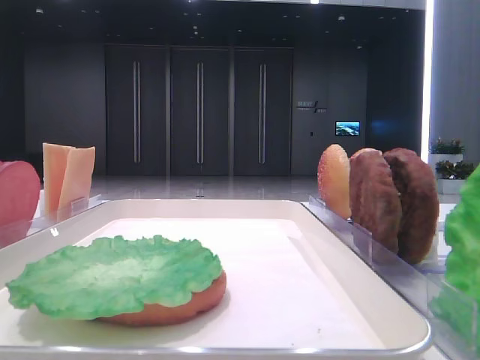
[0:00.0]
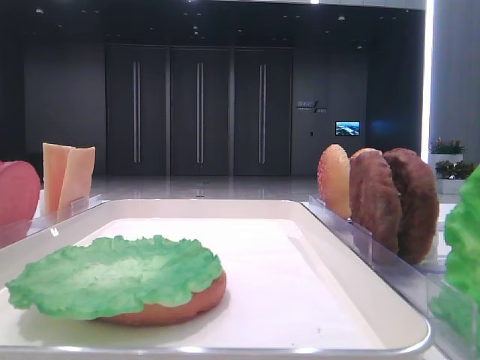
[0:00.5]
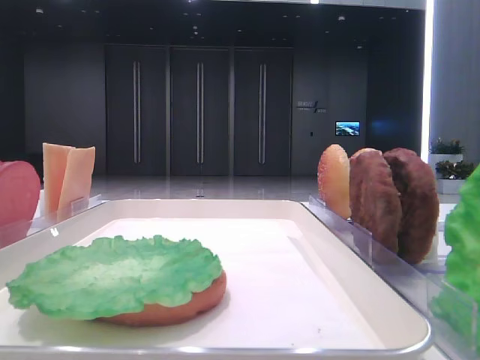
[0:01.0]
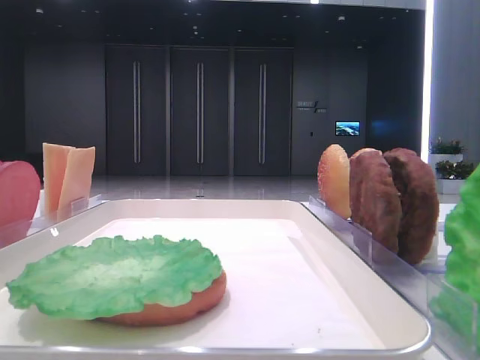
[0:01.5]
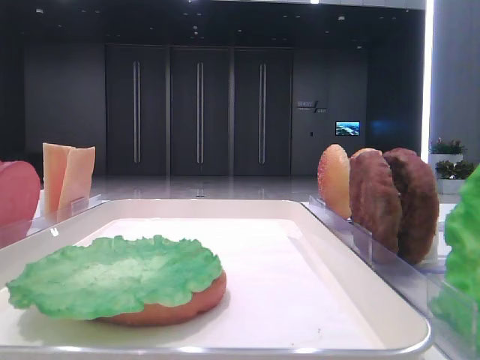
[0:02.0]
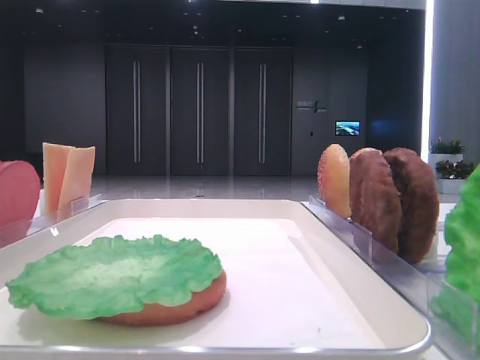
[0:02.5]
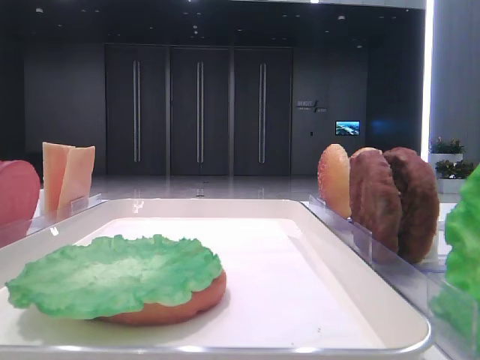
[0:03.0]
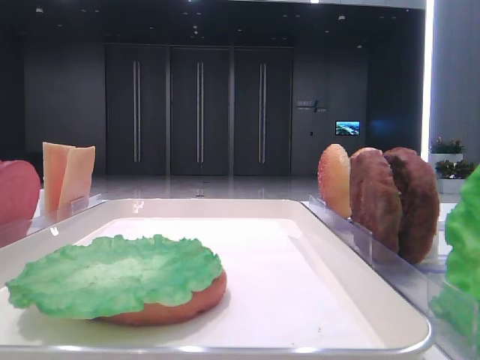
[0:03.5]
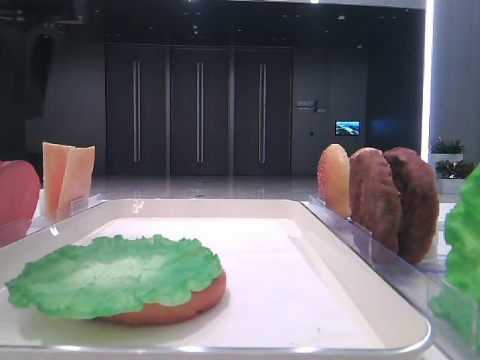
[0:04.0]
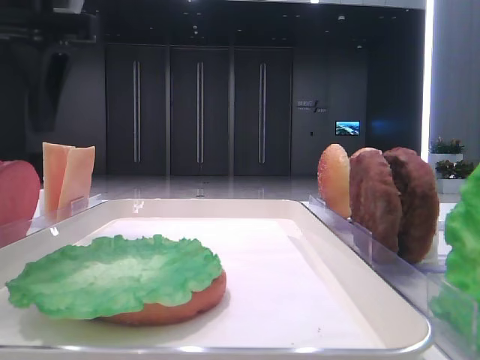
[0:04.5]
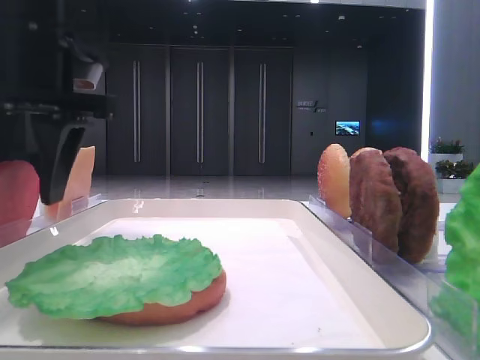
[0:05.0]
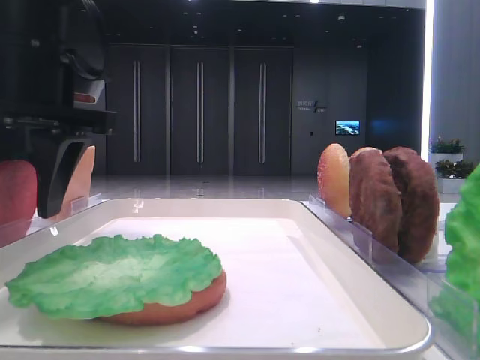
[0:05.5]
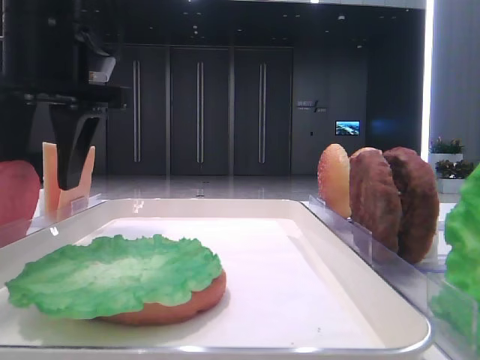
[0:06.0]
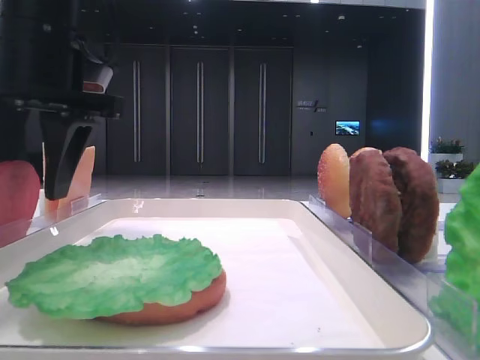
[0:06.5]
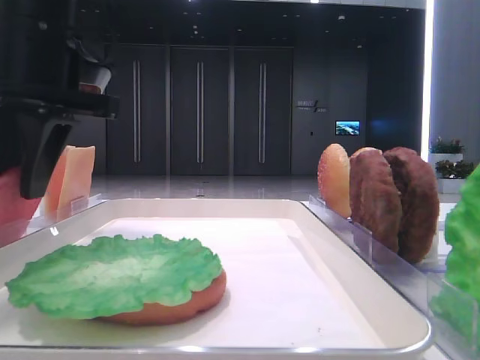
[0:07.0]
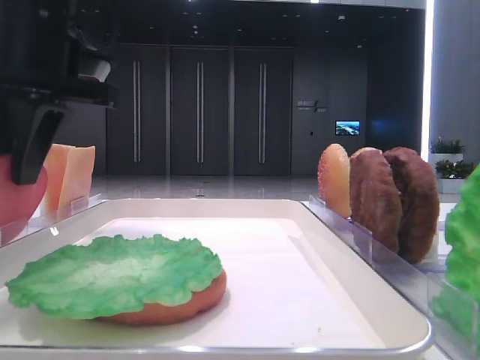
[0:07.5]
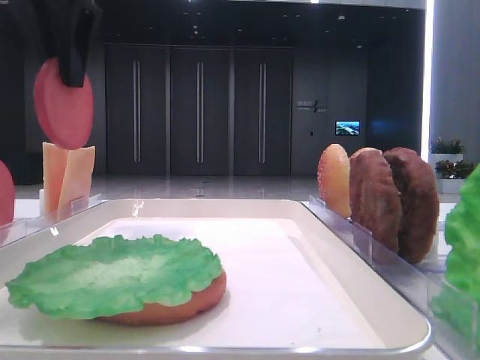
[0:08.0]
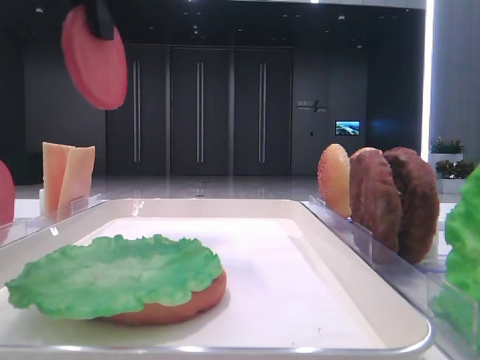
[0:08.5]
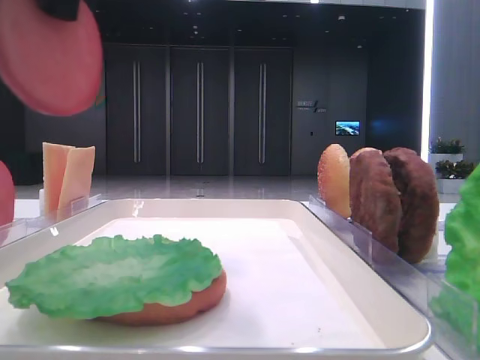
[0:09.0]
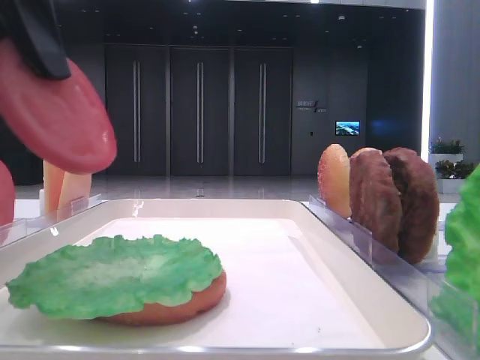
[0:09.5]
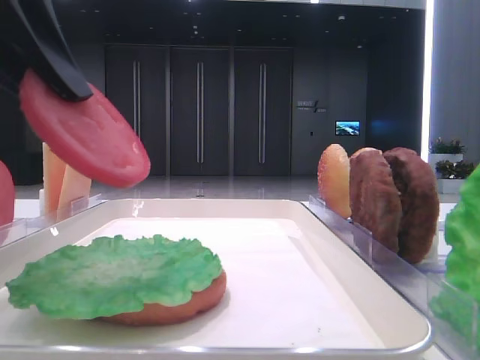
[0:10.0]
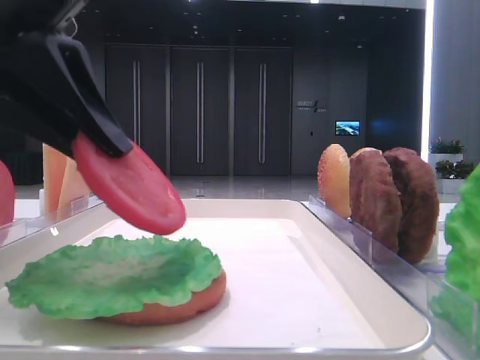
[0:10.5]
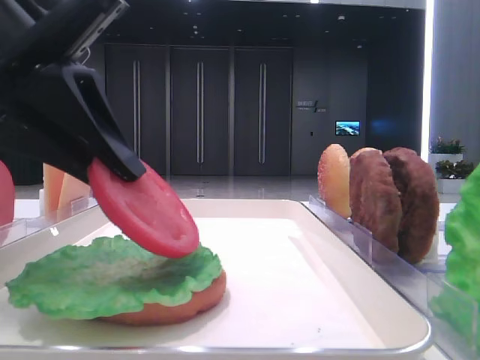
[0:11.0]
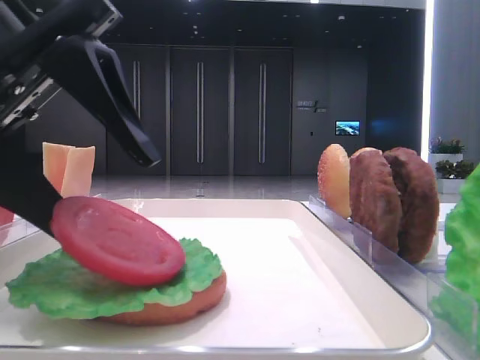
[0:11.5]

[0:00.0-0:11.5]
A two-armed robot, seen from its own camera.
Step, 0:00.0 to 0:06.5: Pick up the tomato slice with the left hand.
0:02.0 to 0:04.0: The left gripper heads forward and to the right, covering roughly 30 cm.
0:04.0 to 0:06.0: The left gripper moves downward, about 5 cm.
0:06.0 to 0:07.5: The left gripper closes its fingers.
0:07.5 to 0:09.5: The left gripper moves backward and upward, roughly 15 cm.
0:09.5 to 0:11.5: The left gripper shifts about 10 cm downward, and opens its fingers.

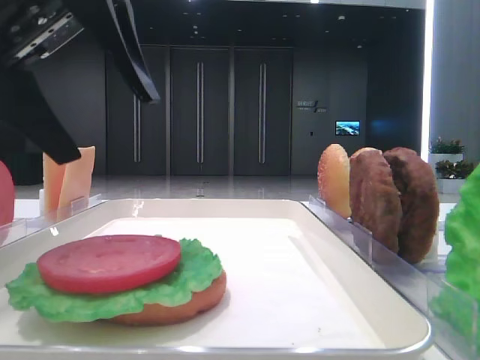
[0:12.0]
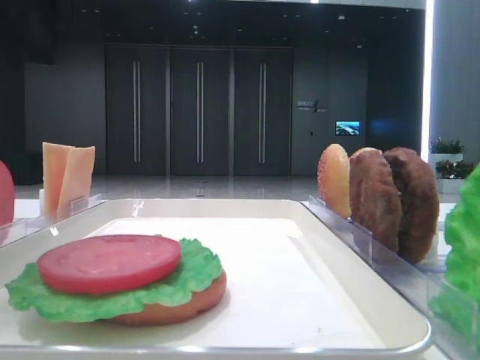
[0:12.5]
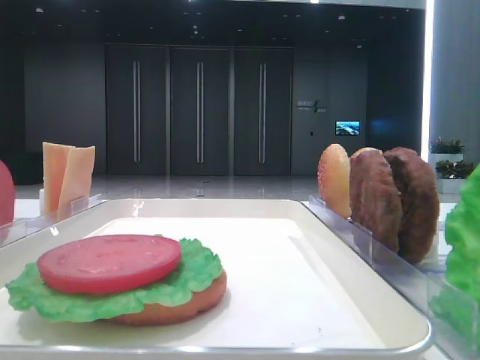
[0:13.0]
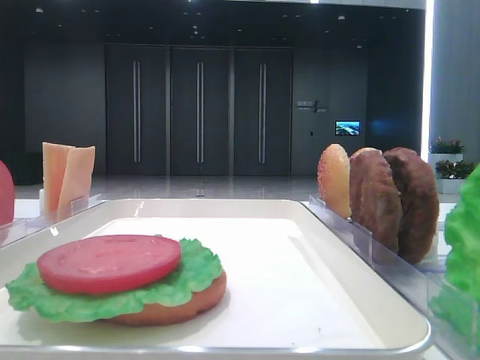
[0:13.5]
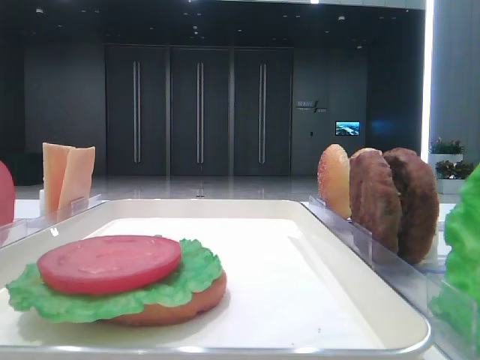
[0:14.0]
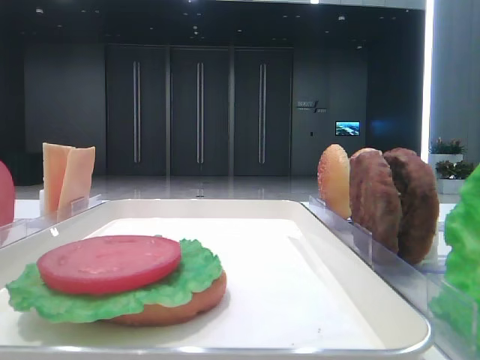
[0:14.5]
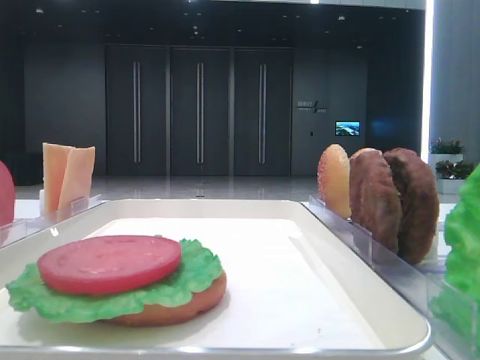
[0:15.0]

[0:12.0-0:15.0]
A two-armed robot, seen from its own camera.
0:12.0 to 0:13.5: The left gripper is displaced to the left and upward by about 20 cm.

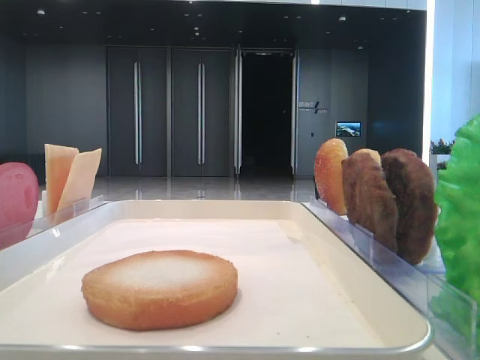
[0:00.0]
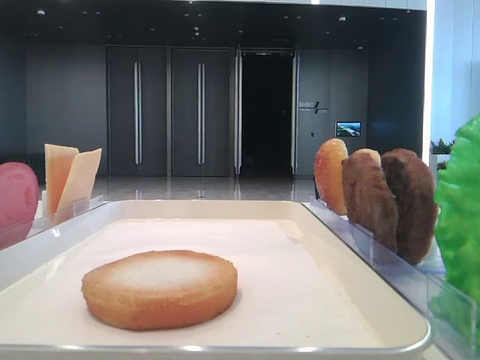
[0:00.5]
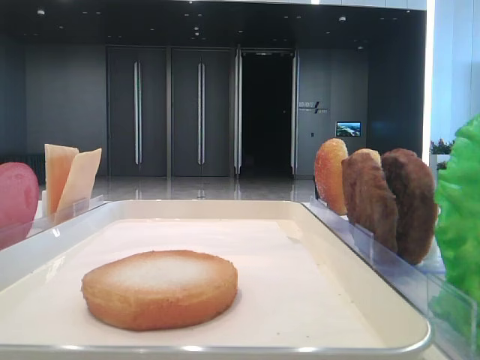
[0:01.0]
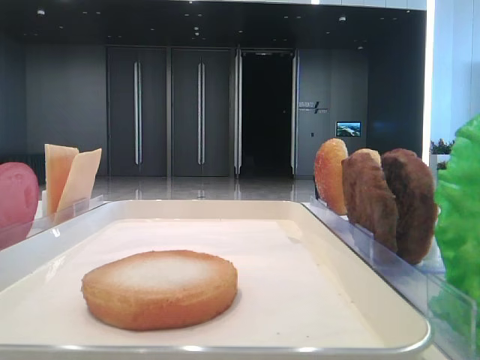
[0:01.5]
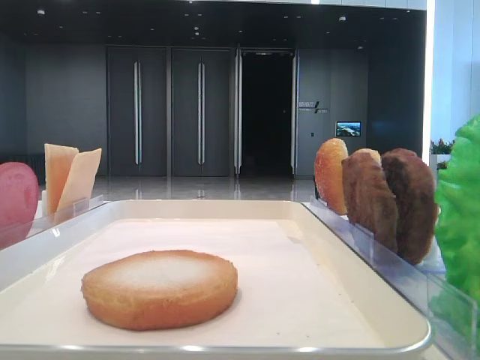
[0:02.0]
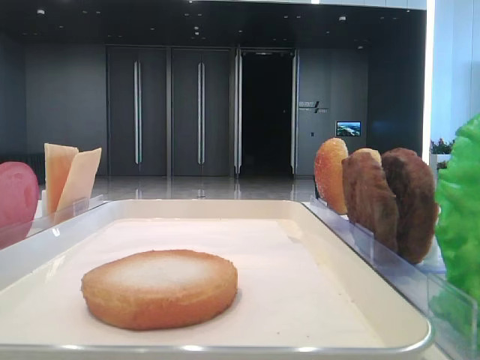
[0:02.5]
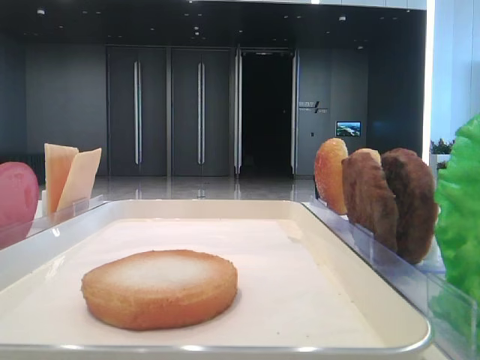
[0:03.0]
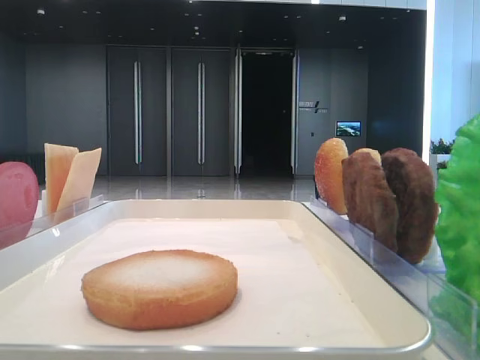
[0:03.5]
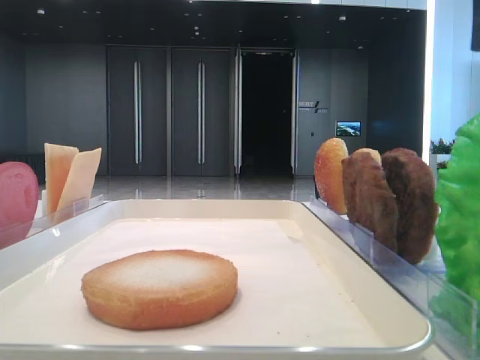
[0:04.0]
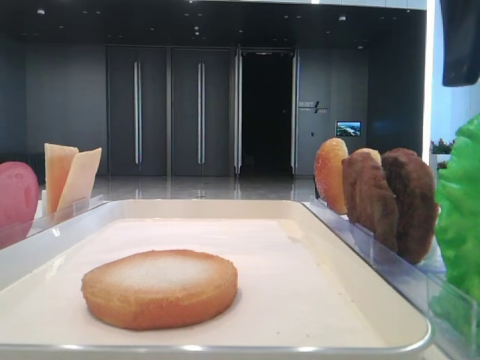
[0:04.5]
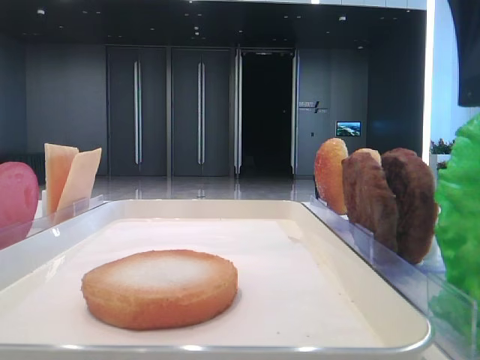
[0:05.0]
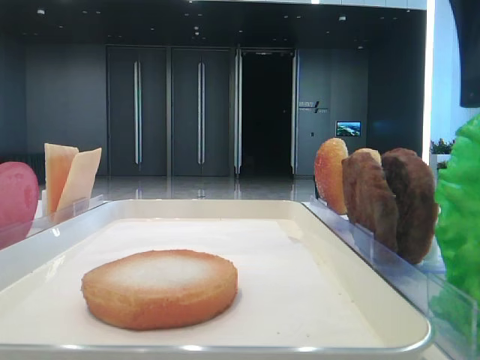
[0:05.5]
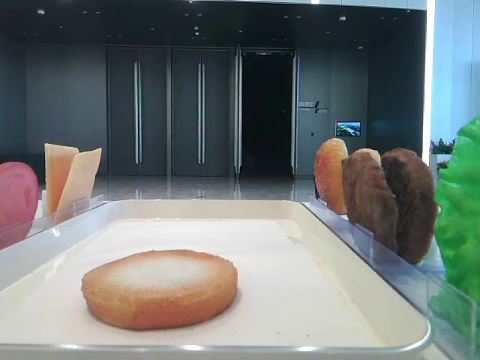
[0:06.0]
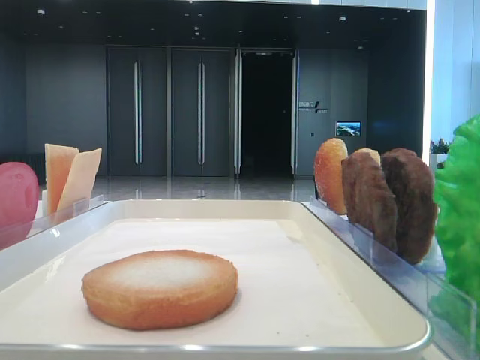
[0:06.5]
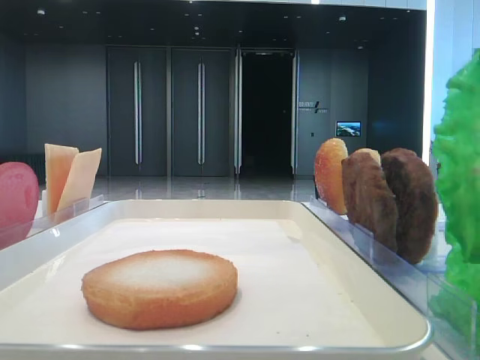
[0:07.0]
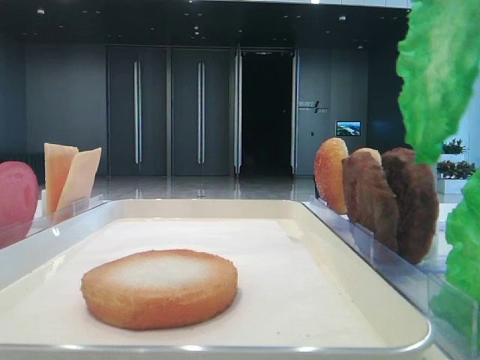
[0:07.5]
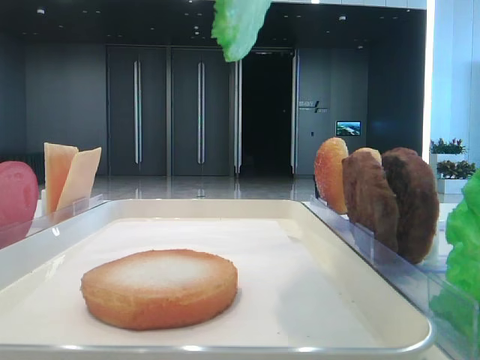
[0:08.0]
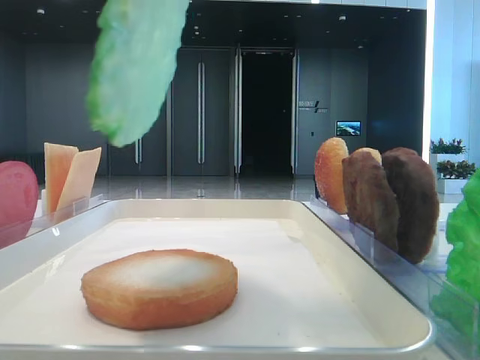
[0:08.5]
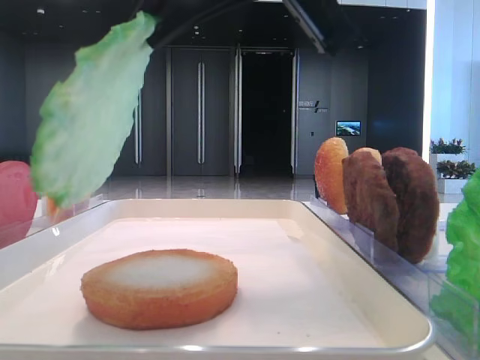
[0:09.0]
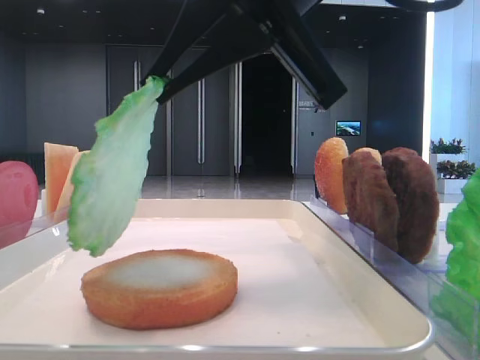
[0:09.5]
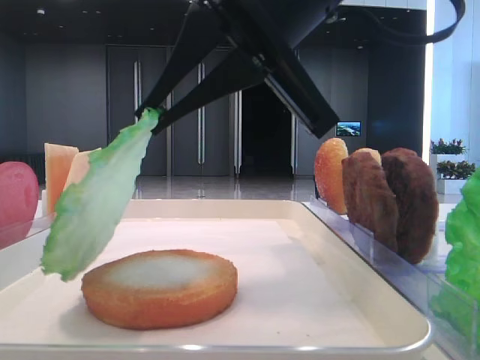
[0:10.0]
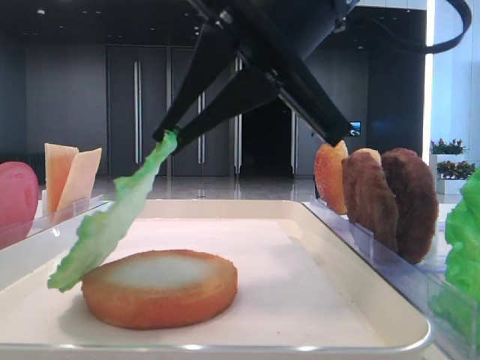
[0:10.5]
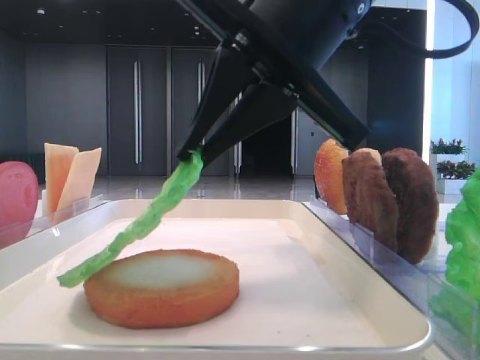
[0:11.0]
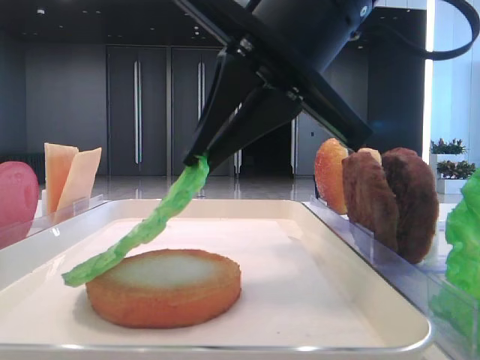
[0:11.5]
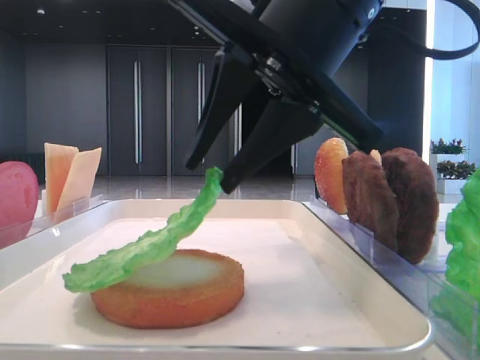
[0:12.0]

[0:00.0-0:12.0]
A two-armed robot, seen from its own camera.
Step, 0:00.0 to 0:06.0: Grab the lettuce leaf with the right hand.
0:06.0 to 0:08.0: The right gripper heads upward, covering some 10 cm.
0:08.0 to 0:10.0: The right gripper goes roughly 15 cm downward, to the left and forward.
0:10.0 to 0:12.0: There are only small adjustments of the grippers.
